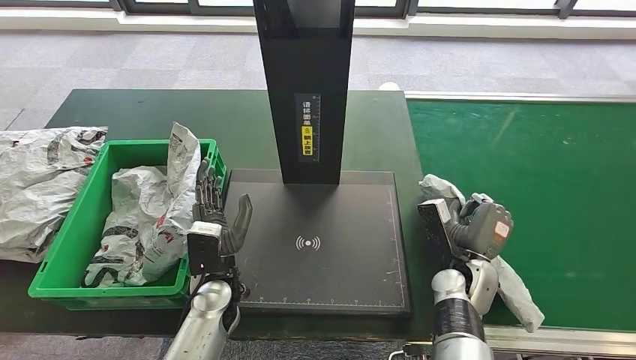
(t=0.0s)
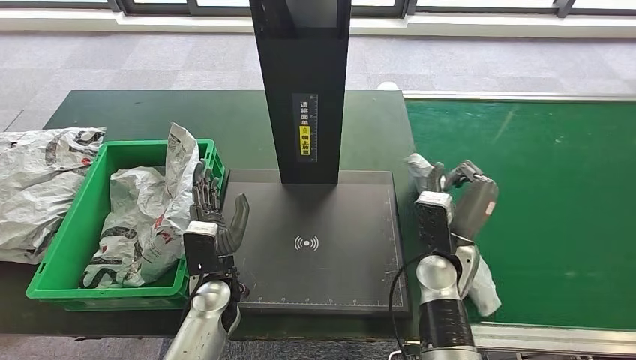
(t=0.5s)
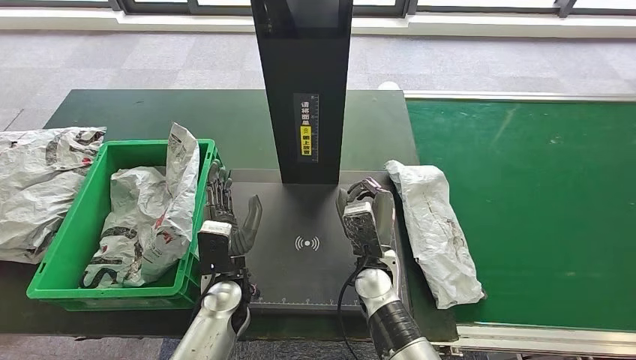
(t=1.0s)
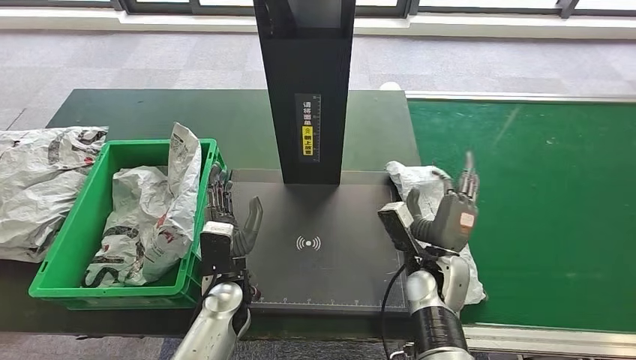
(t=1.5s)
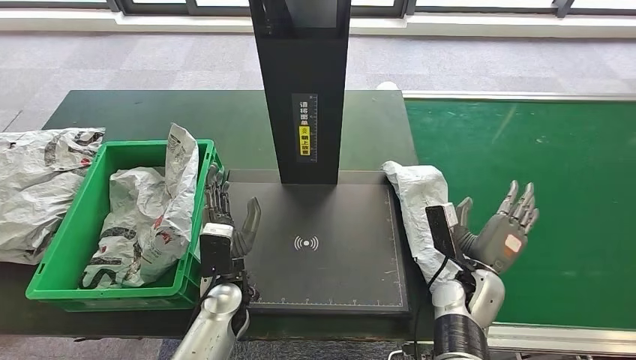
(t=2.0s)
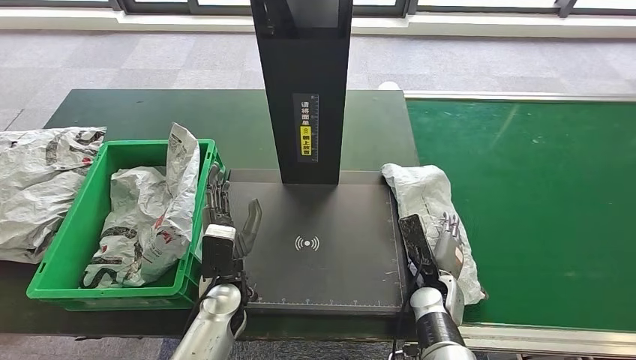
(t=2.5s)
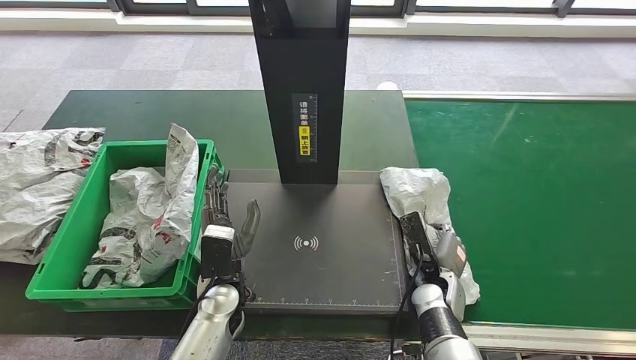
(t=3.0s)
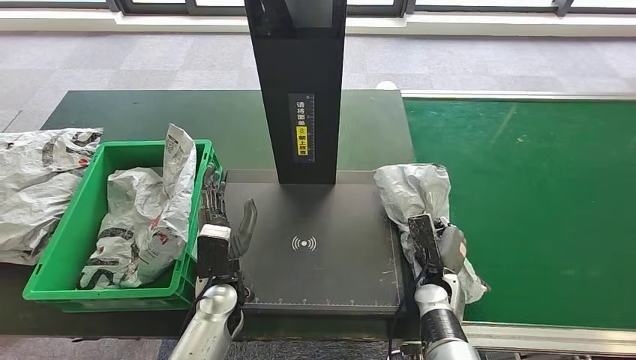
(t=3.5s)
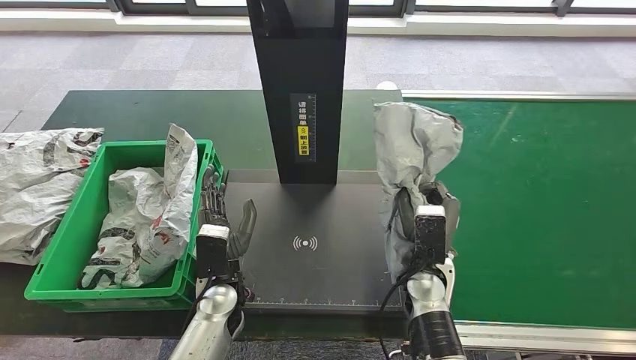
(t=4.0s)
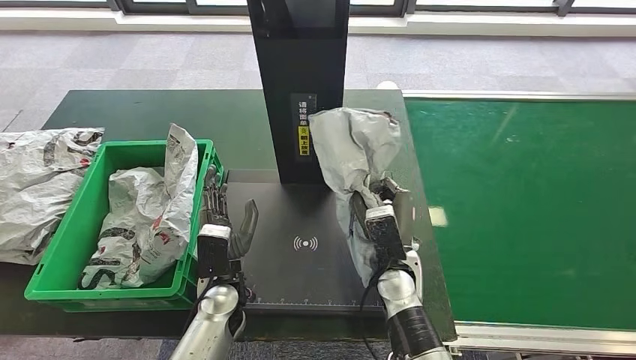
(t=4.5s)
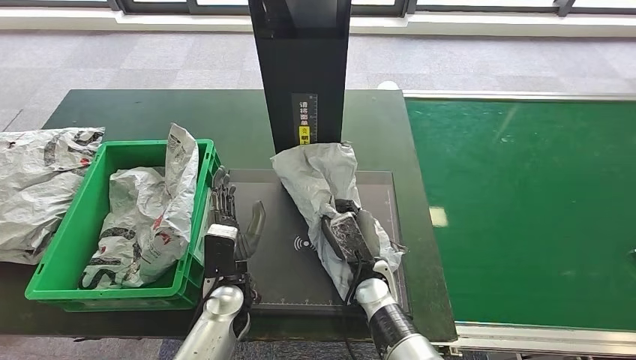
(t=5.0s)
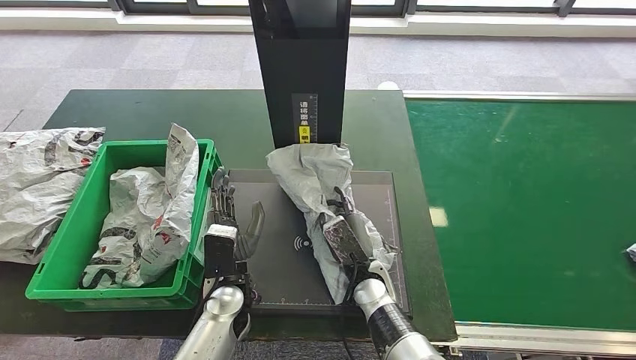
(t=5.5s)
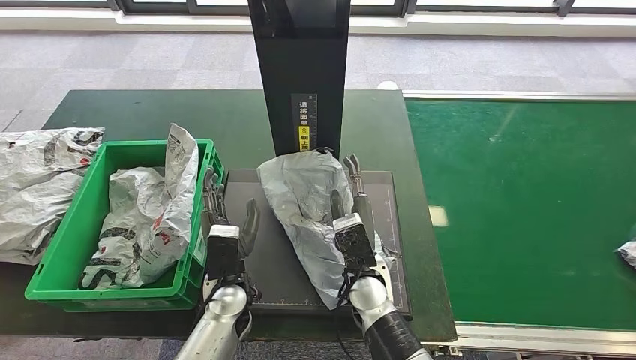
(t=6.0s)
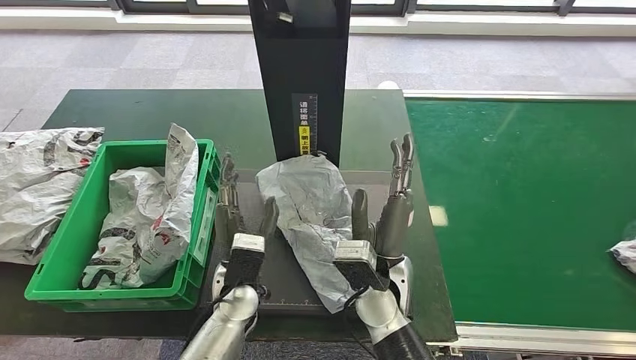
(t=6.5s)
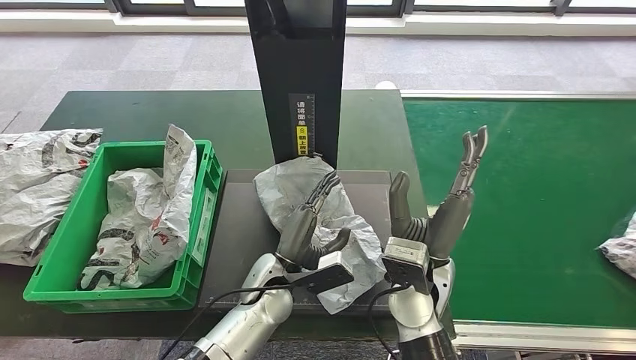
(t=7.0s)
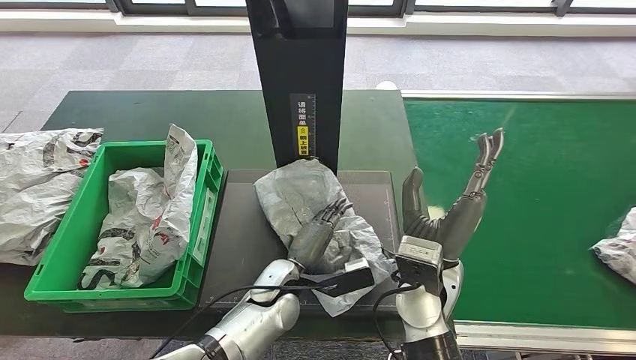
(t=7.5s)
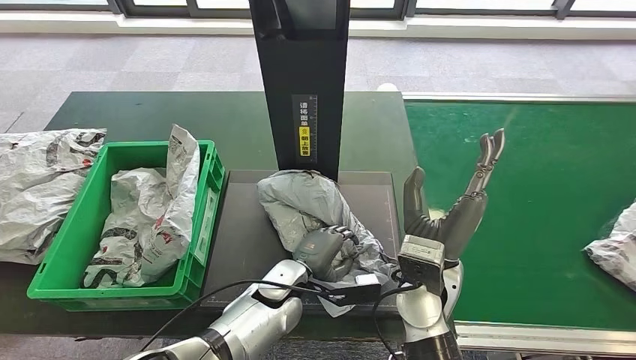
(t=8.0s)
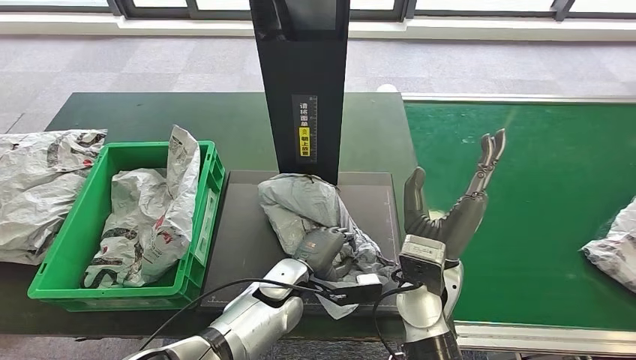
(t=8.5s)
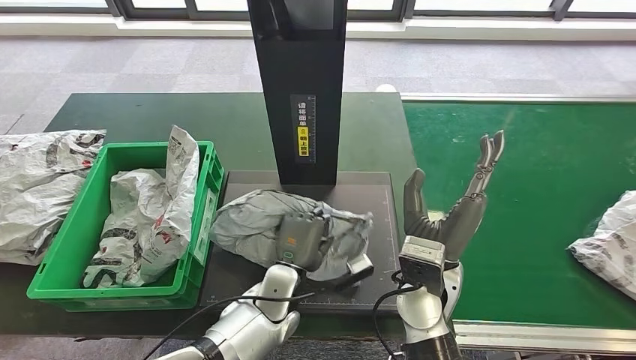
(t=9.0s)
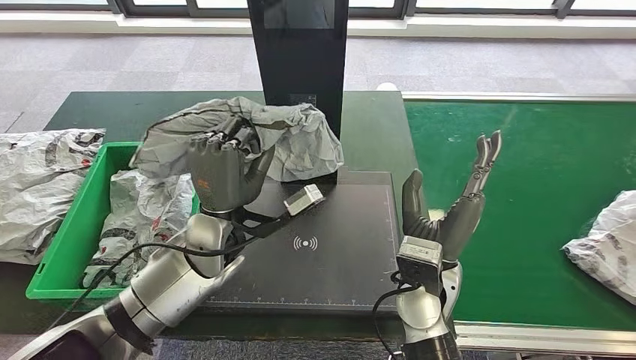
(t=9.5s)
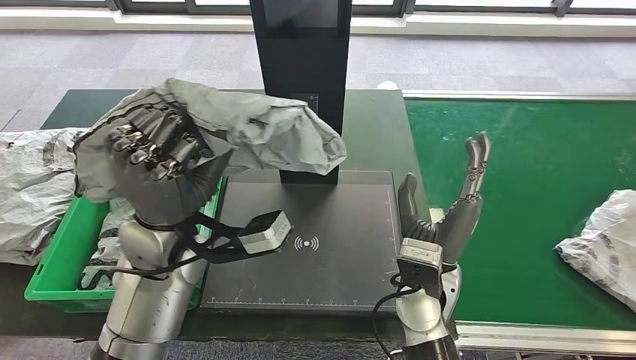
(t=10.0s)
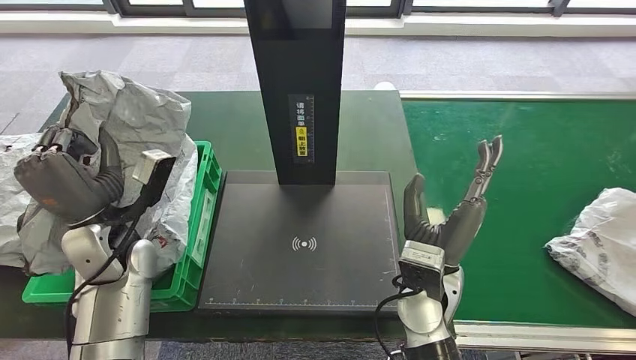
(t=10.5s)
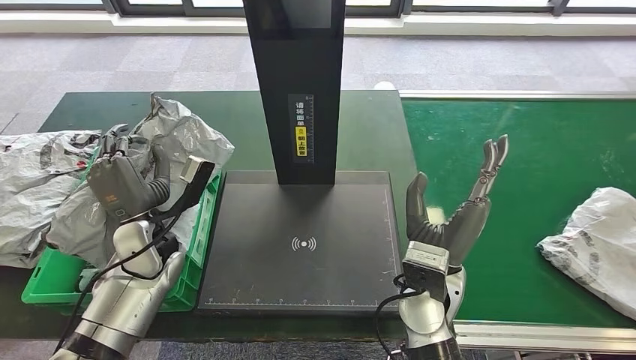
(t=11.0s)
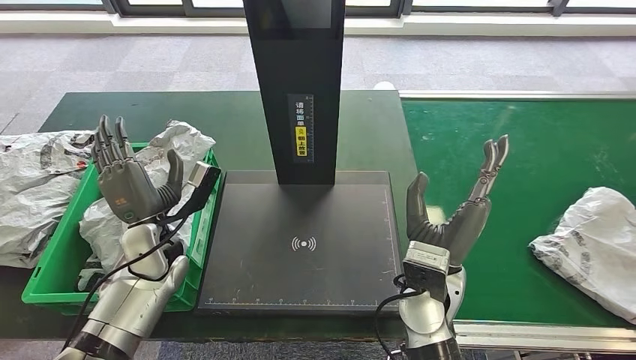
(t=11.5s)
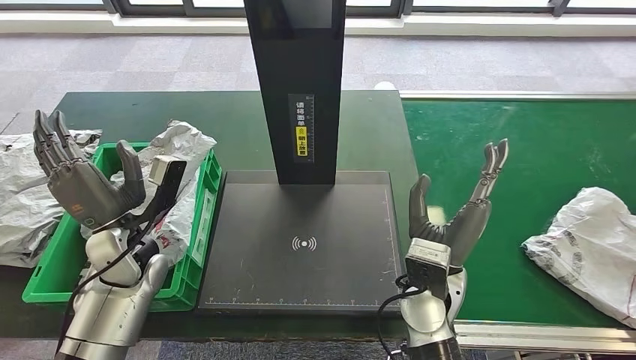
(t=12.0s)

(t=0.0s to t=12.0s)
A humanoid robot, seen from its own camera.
Step, t=0.0s - t=4.0s: Pick up the parcel from the conveyor belt.
Step, t=5.0s - t=7.5s: Place the parcel onto the inbound machine.
Step, t=8.0s - t=9.5s: Pick up the parcel from the inbound machine.
t=0.0s - t=2.0s: The right hand goes to the left and returns, some 15 cm each way.
t=2.0s - t=4.0s: The right hand moves to the left, roughly 10 cm.
t=4.0s - t=6.0s: The right hand heads to the left, covering approximately 10 cm.

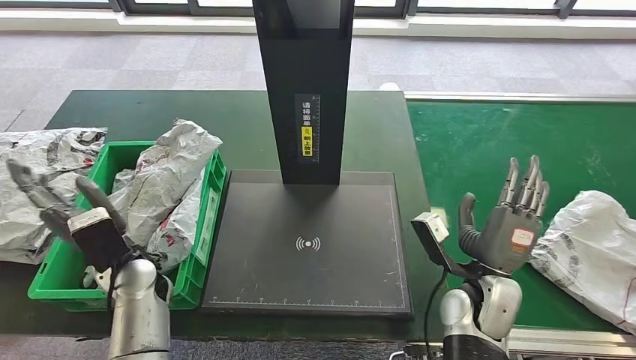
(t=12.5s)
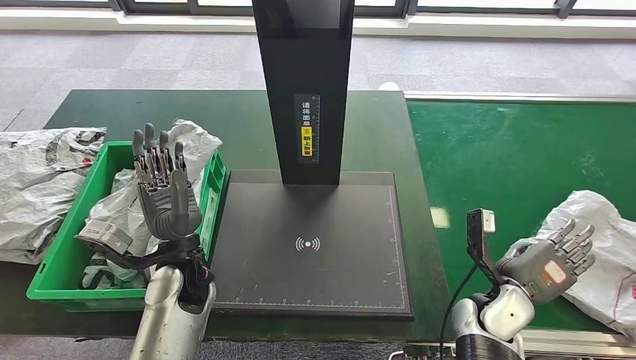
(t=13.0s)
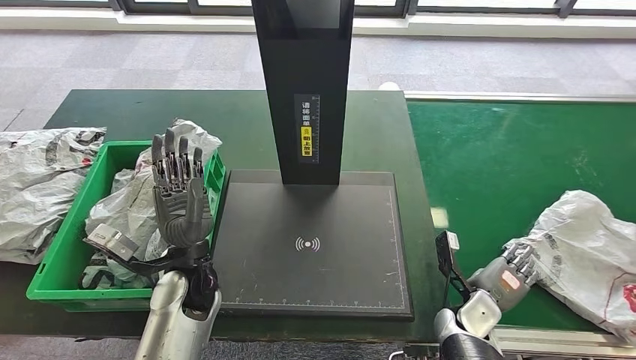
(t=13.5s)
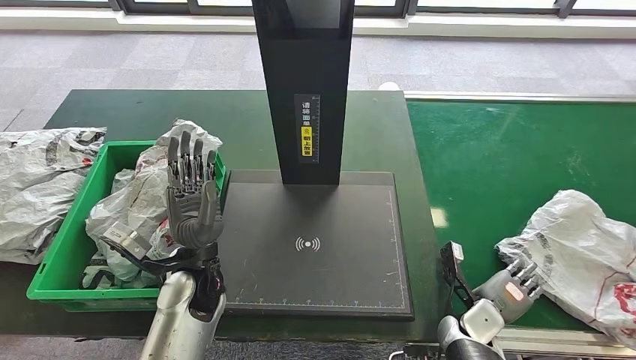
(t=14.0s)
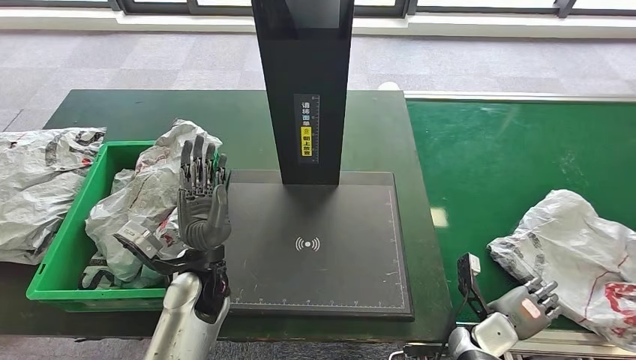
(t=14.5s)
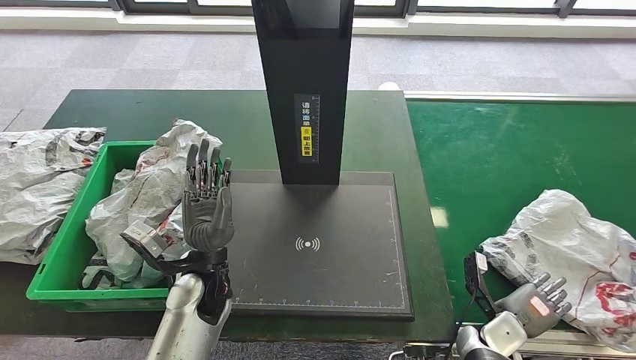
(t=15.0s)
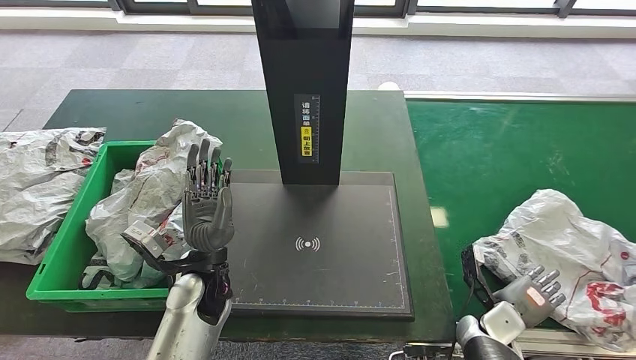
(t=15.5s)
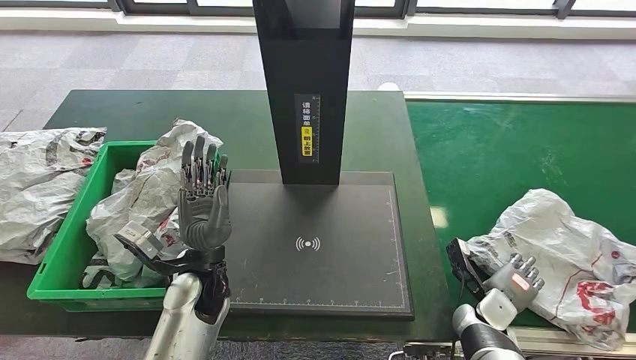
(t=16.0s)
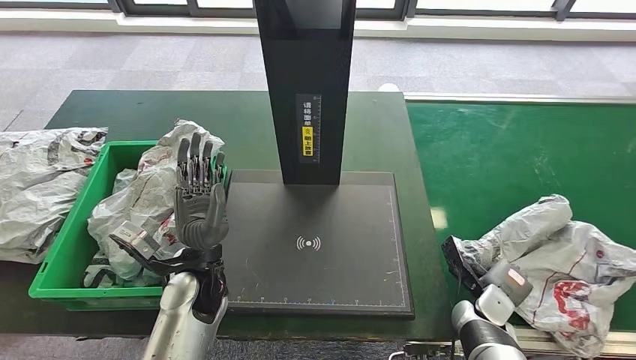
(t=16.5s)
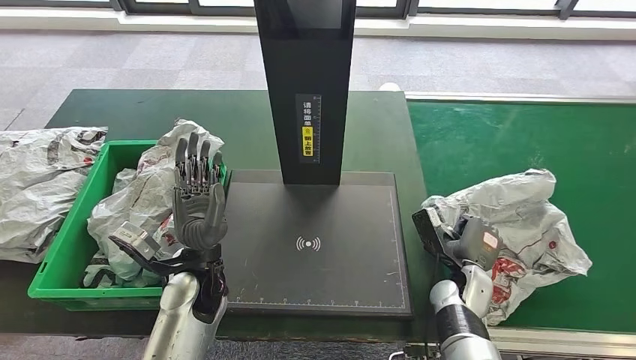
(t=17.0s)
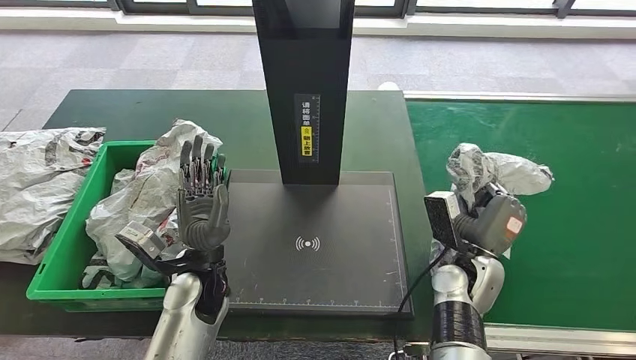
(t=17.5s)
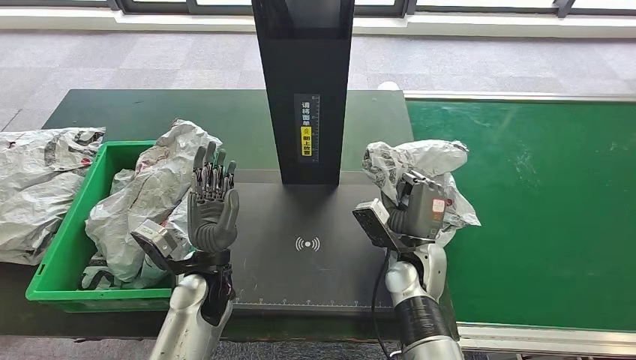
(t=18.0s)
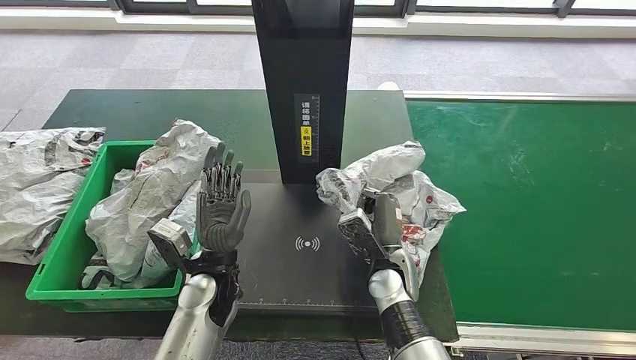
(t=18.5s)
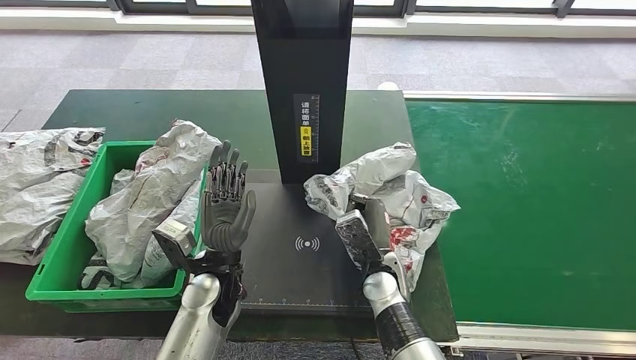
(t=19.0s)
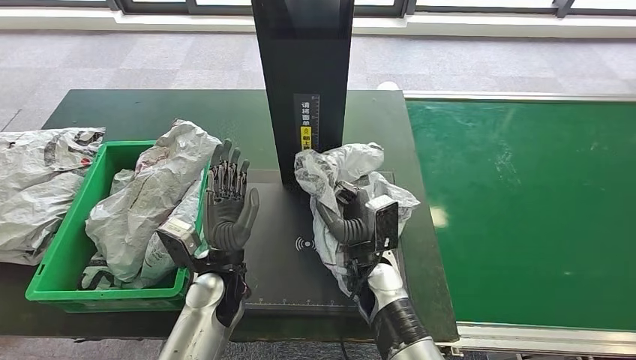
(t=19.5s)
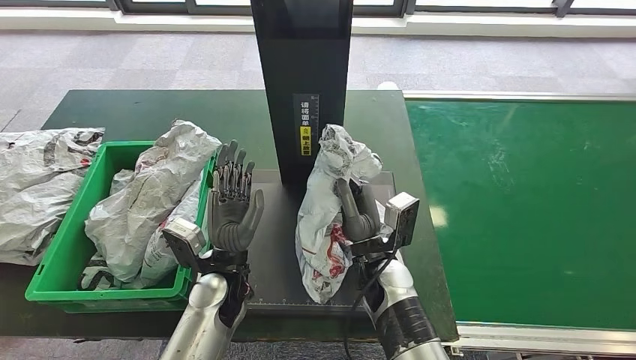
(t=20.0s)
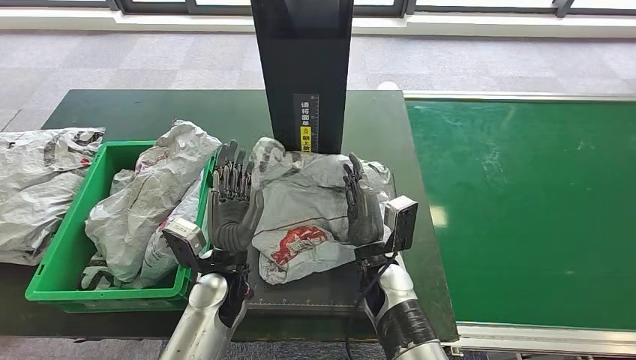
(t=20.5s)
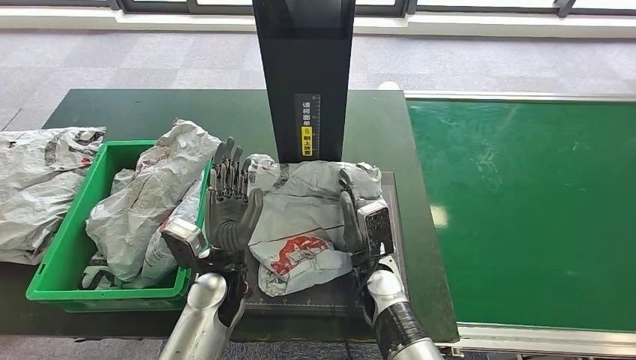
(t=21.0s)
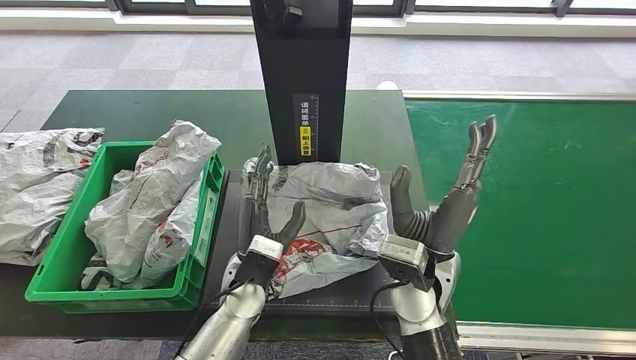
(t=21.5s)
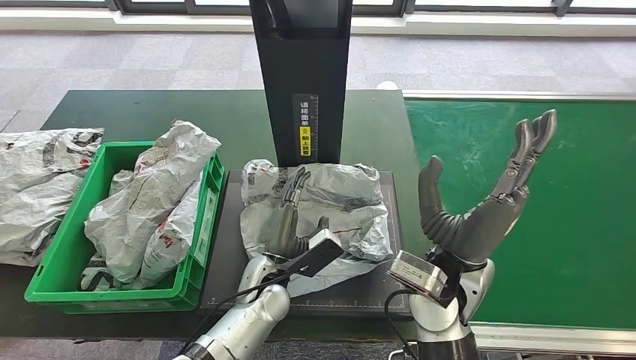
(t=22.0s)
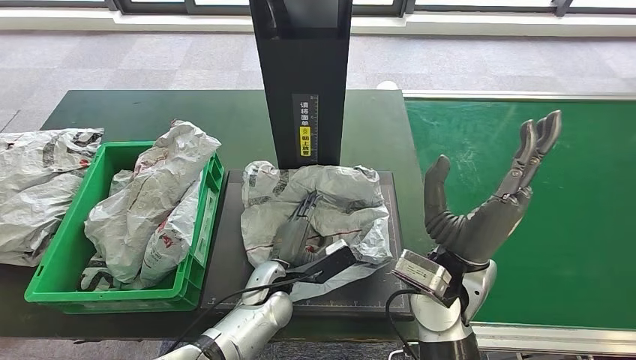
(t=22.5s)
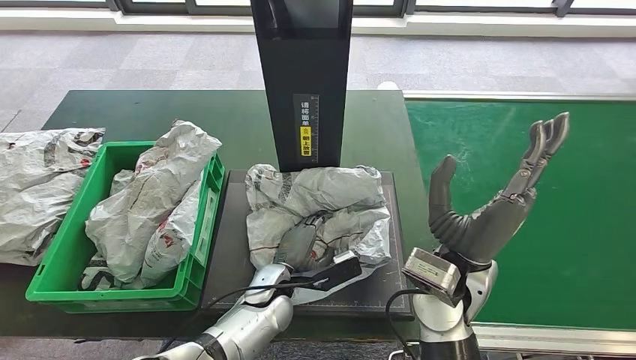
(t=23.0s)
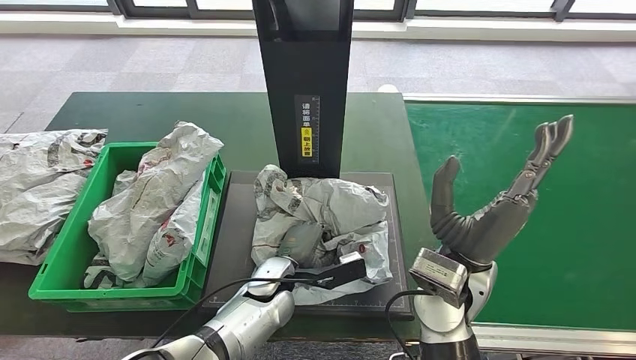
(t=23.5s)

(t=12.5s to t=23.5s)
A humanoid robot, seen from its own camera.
Step, t=13.5s - t=18.0s: Pick up the parcel from the conveyor belt.
Step, t=18.5s - t=21.5s: Place the parcel onto the inbound machine.
t=14.5s - t=16.0s: The hands move only a little.
t=18.0s - t=20.0s: The right hand goes about 5 cm to the left.
t=20.0s - t=21.5s: The right hand shifts about 5 cm upward.
